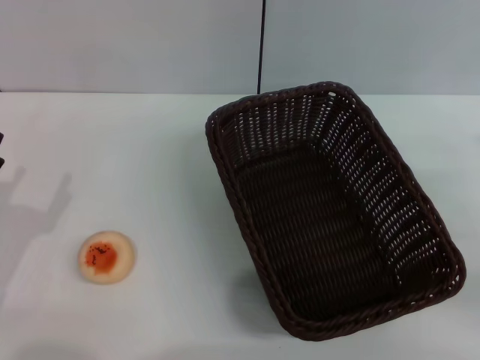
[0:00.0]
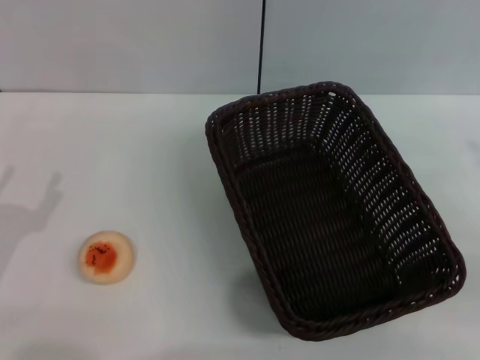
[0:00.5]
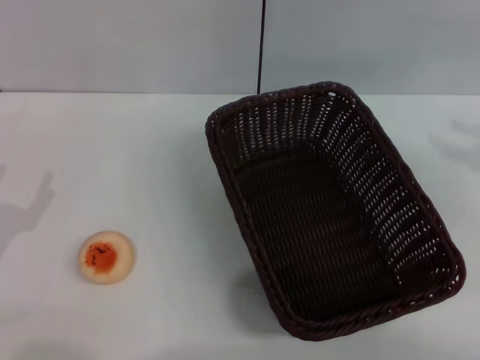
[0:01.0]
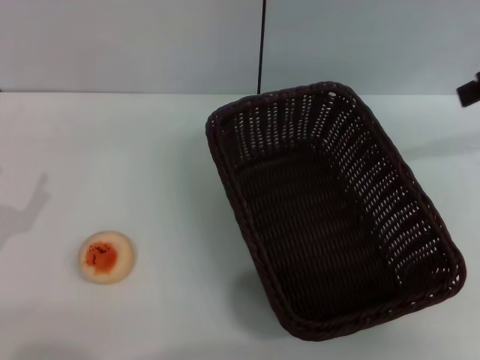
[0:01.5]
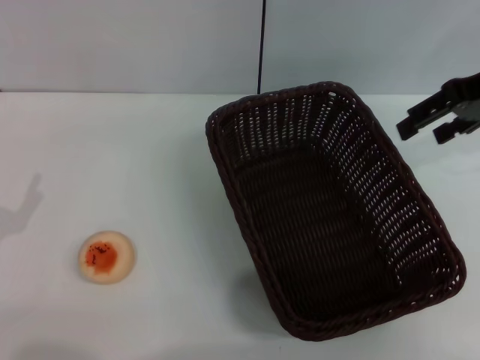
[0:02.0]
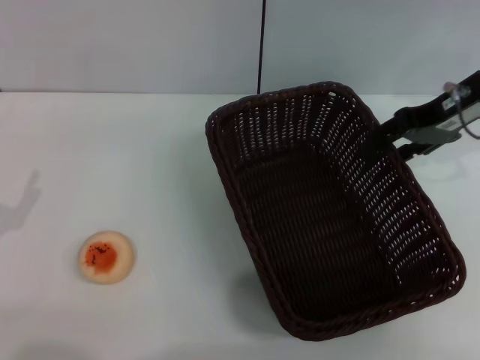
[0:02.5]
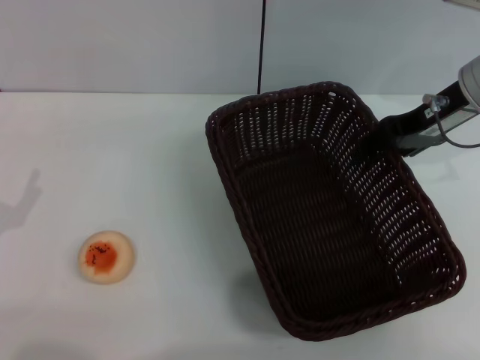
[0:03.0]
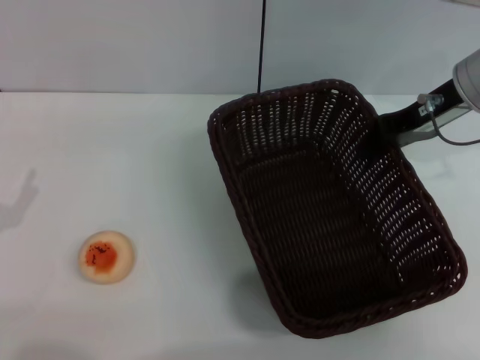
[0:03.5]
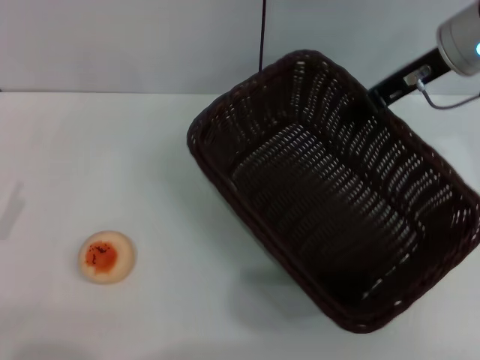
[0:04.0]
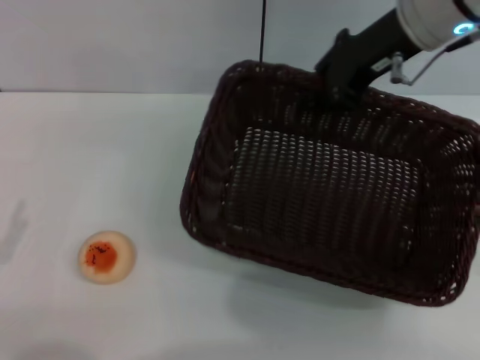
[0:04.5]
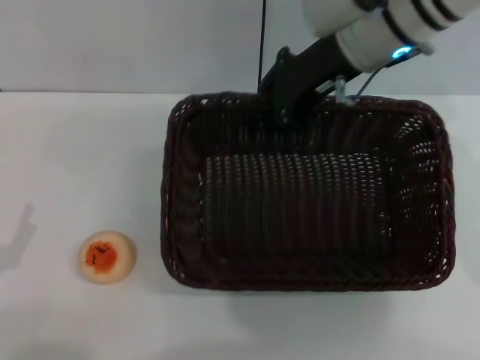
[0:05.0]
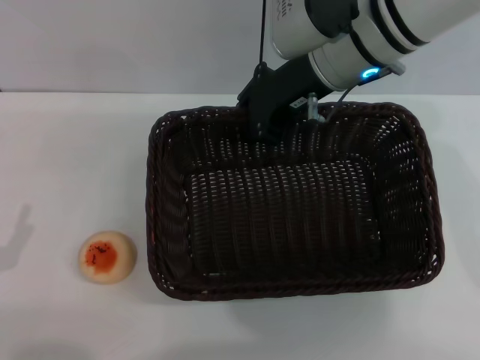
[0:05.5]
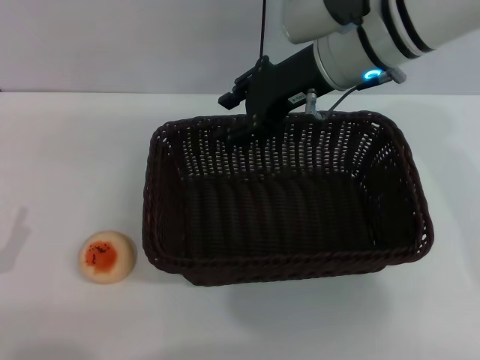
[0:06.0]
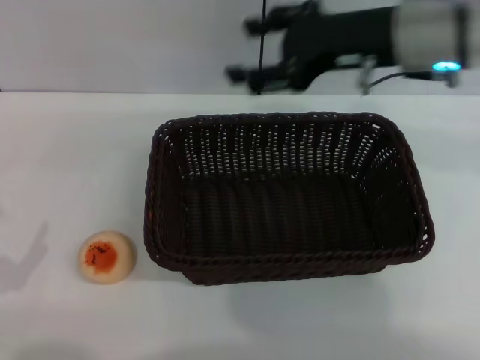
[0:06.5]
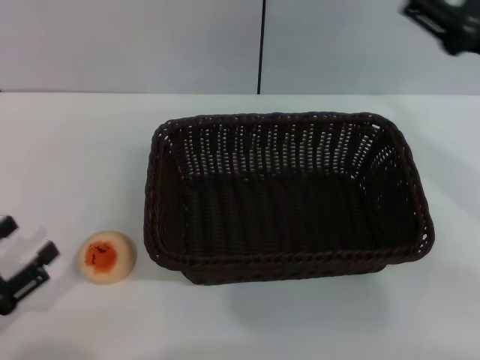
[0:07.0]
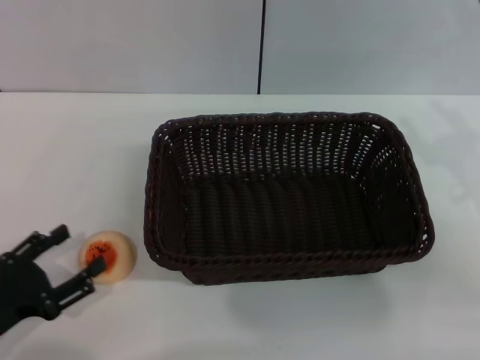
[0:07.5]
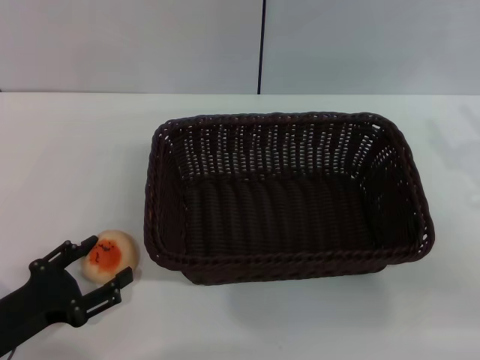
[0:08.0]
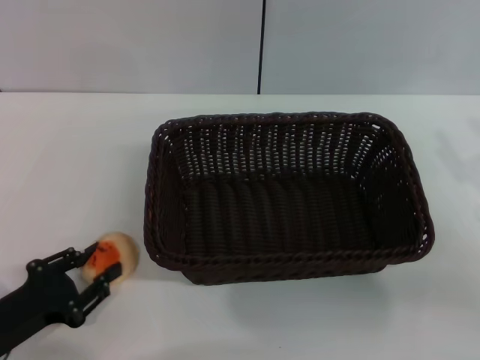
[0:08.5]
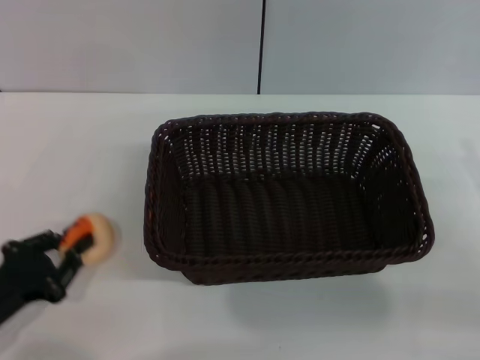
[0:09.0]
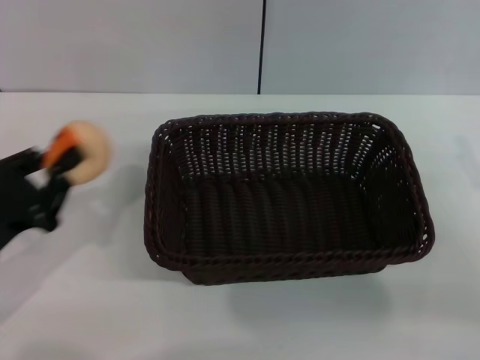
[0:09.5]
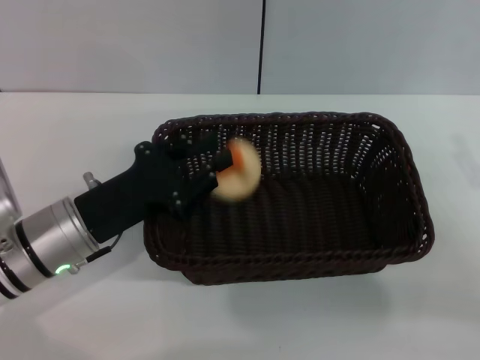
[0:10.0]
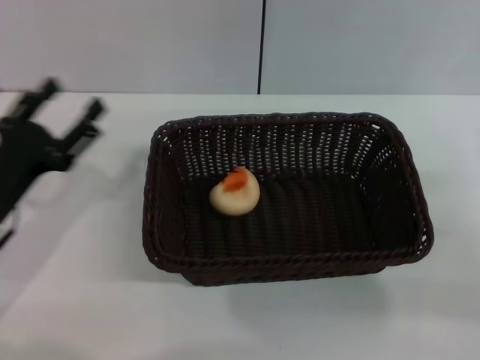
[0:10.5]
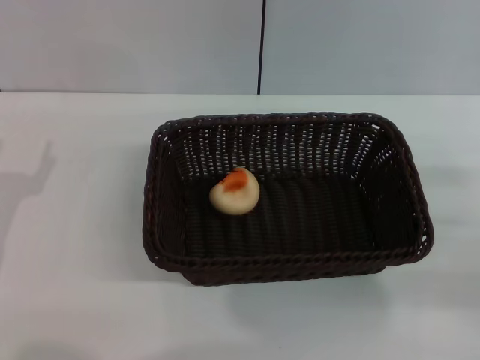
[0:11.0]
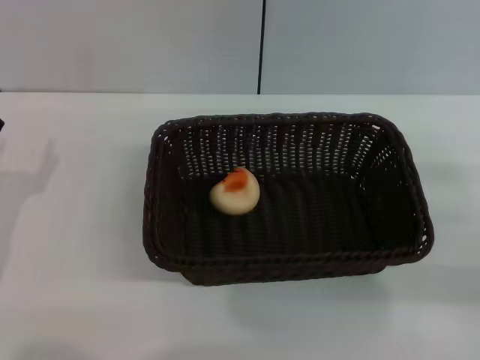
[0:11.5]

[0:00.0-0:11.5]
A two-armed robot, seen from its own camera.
Step, 0:00.0 to 0:06.0: Move the basket to the center of view with the right gripper.
Step, 0:06.5 to 0:09.0: Pick up the egg yolk pastry with the left gripper.
Step, 0:09.5 to 0:10.0: Place the egg yolk pastry into the basket with the left gripper.
0:00.0 to 0:02.0: The right gripper moves forward, upward and to the left, roughly 25 cm.
0:02.0 to 0:04.0: The right gripper shifts about 5 cm to the left, and closes its fingers.
0:04.0 to 0:06.0: The right gripper travels to the left by roughly 10 cm.
0:06.0 to 0:07.5: The right gripper travels to the right, backward and downward by roughly 25 cm, and opens.
0:07.5 to 0:09.5: The left gripper shifts approximately 5 cm forward, and closes.
0:09.5 to 0:11.5: The left gripper moves approximately 10 cm to the right and comes back, and opens its fingers.

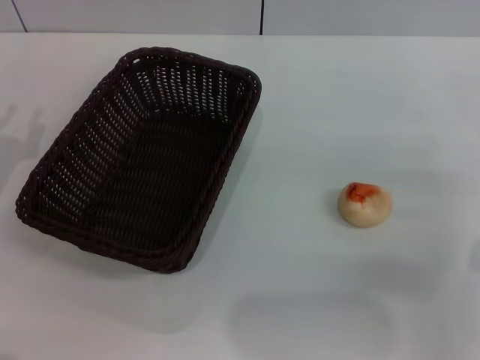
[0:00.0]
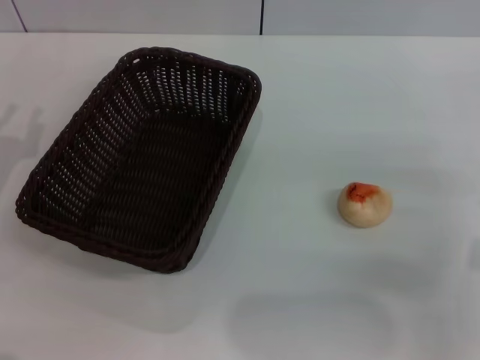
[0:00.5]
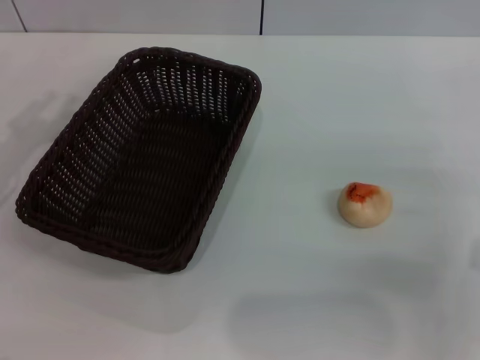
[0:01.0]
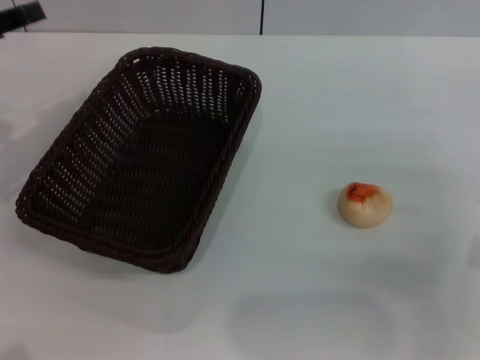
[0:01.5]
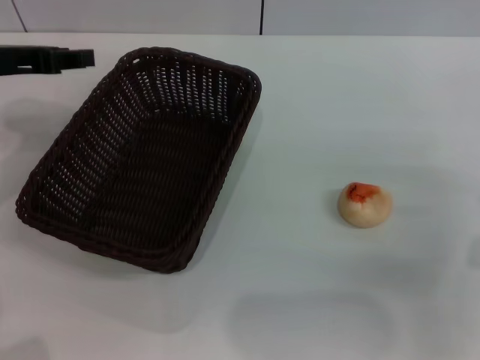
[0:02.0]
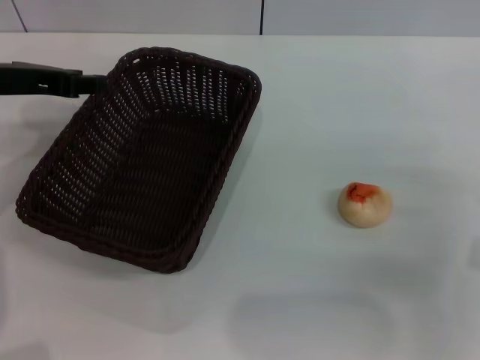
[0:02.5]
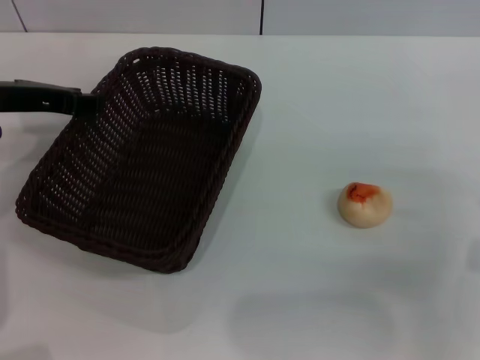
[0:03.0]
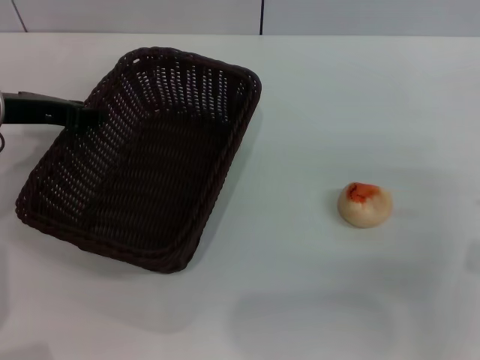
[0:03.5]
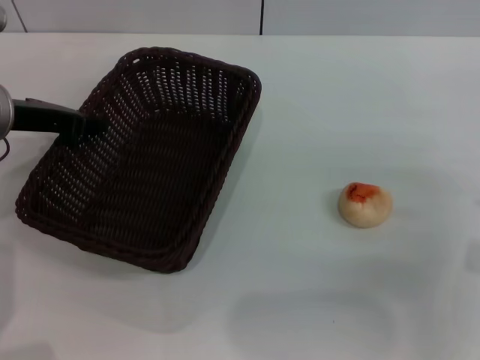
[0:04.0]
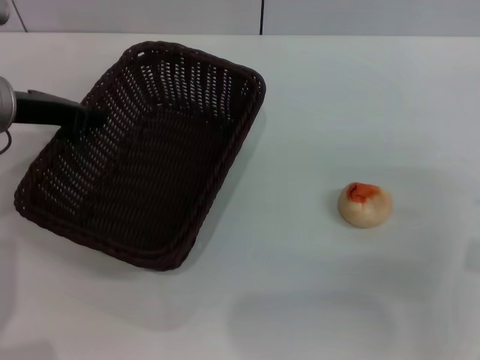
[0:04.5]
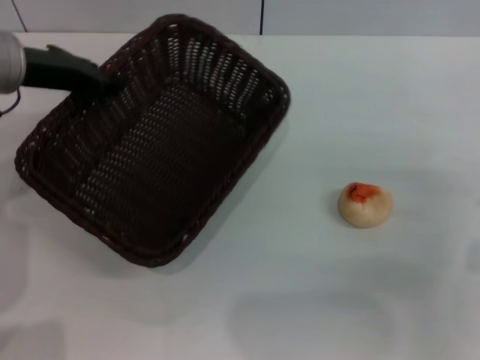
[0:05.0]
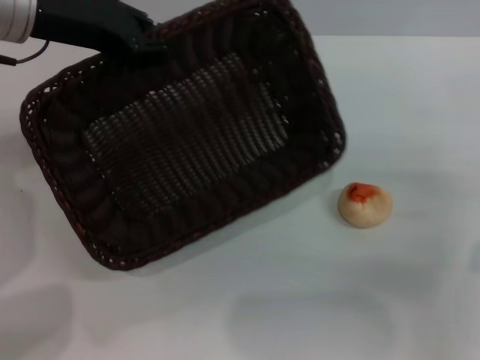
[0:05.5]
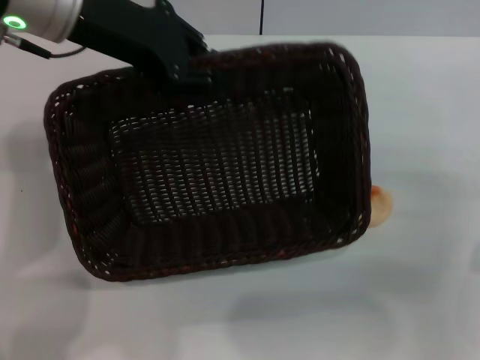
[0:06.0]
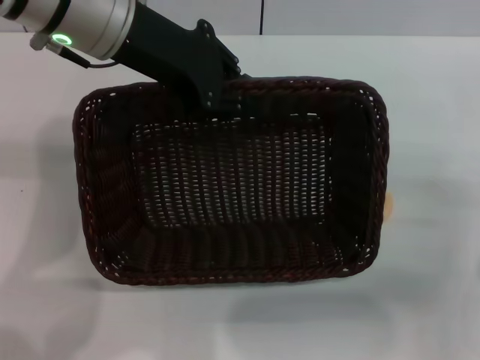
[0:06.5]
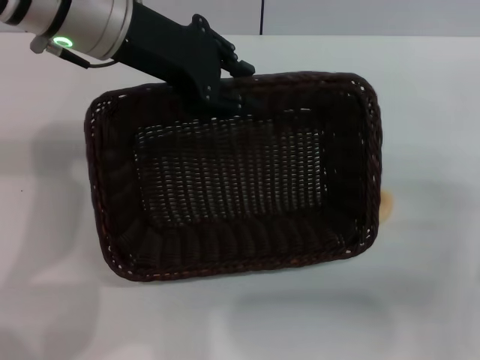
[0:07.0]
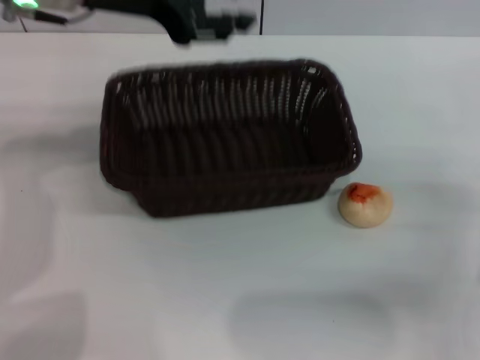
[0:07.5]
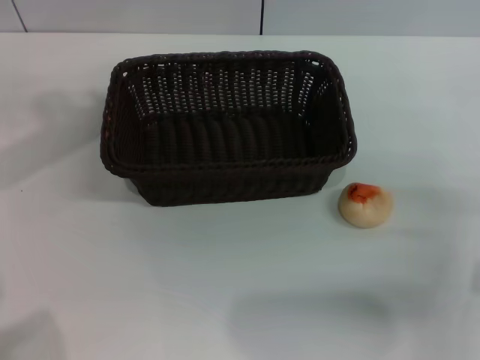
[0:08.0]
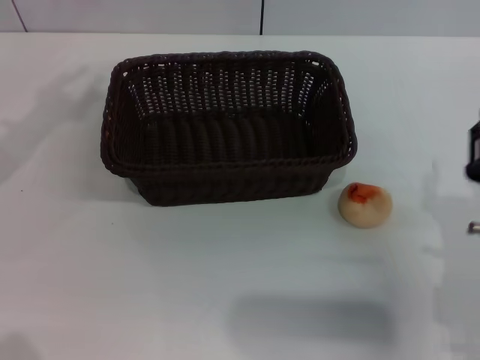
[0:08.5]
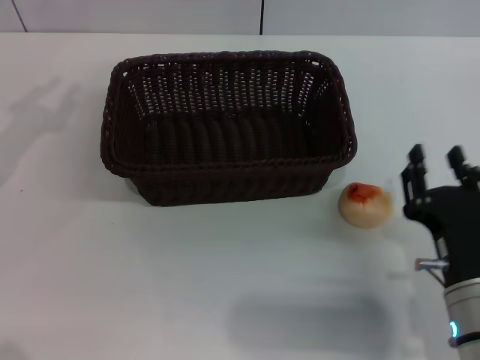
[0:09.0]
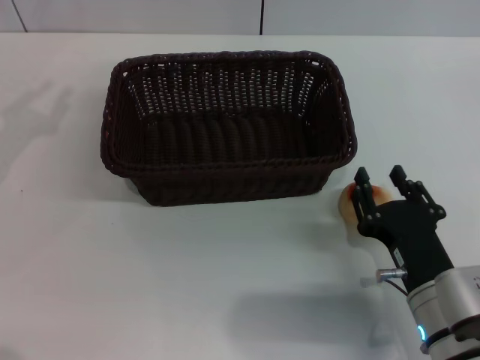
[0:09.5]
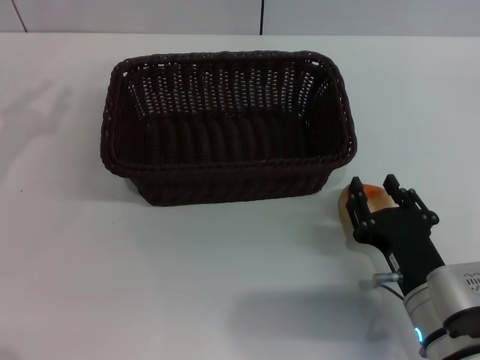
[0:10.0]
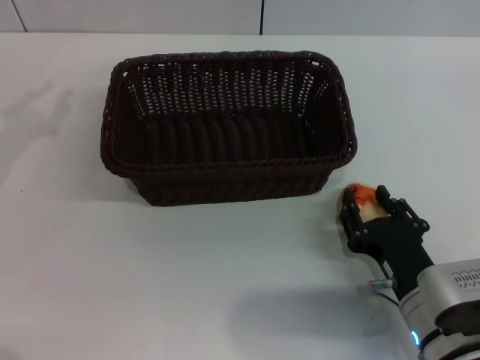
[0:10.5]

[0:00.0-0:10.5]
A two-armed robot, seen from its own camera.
Step, 0:00.0 to 0:07.0: Move the basket to the center of view with the left gripper.
0:00.0 to 0:02.0: The left gripper shifts some 15 cm upward, forward and to the right.
0:02.0 to 0:04.0: The left gripper shifts by about 5 cm.
0:04.0 to 0:06.5: The left gripper heads to the right and upward, covering some 15 cm.
0:06.5 to 0:08.5: The right gripper is displaced to the left by about 5 cm, while the left gripper travels to the left by approximately 20 cm, and opens.
0:08.5 to 0:10.5: The right gripper heads downward, covering some 5 cm.

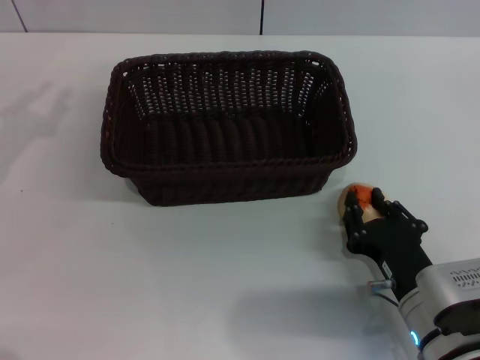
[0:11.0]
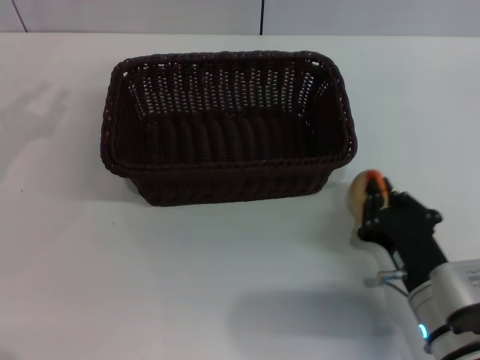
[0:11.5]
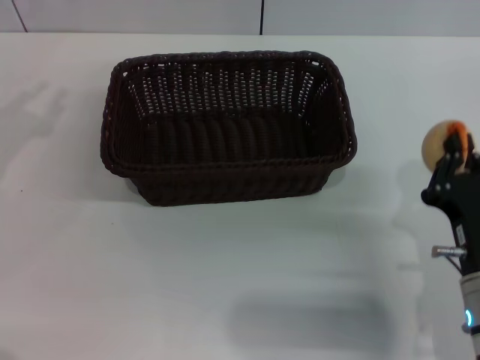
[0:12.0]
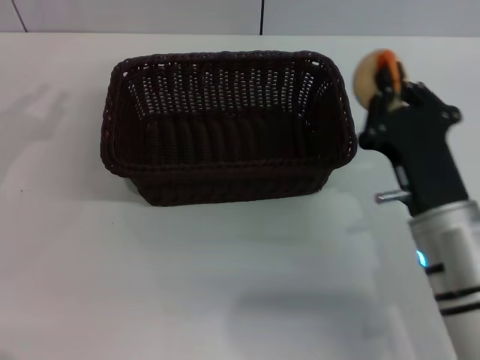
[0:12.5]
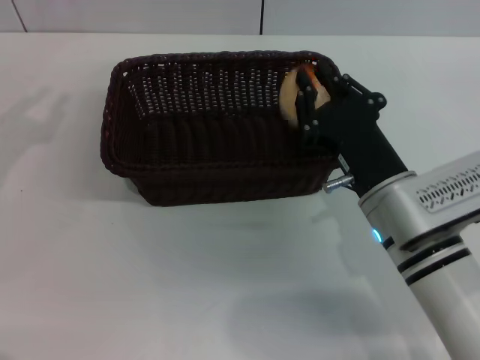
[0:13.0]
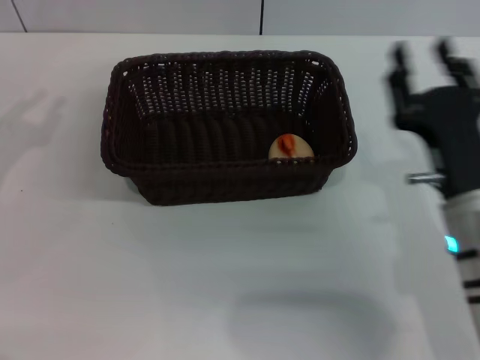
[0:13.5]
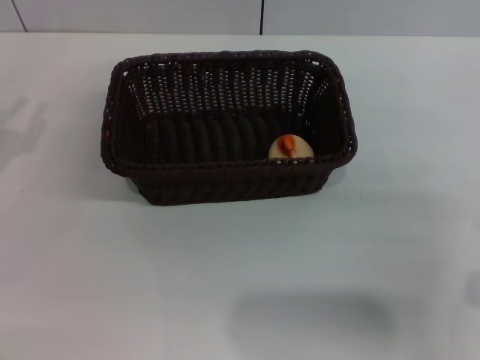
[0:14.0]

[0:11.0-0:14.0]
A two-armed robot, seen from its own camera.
Step, 0:12.0 to 0:13.0: Place the egg yolk pastry into the basket with the right gripper.
0:11.0 to 0:12.5: The right gripper moves upward, about 5 cm, and closes up.
0:12.5 to 0:14.0: The right gripper goes roughly 10 cm to the right, and opens its fingers.
